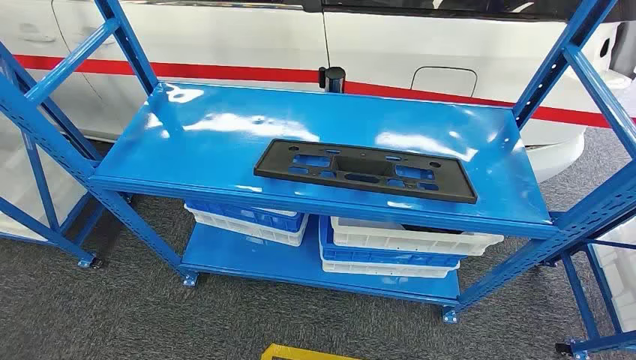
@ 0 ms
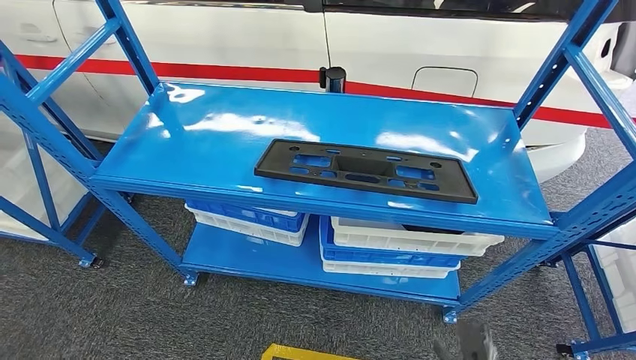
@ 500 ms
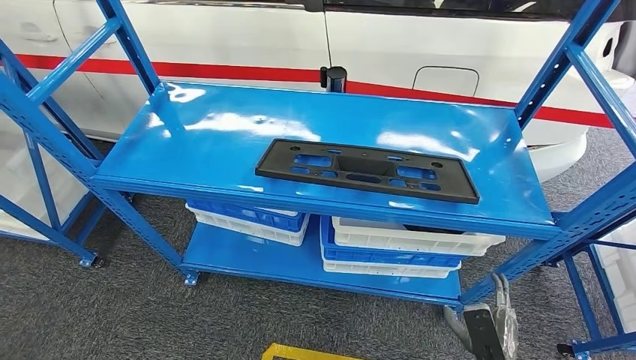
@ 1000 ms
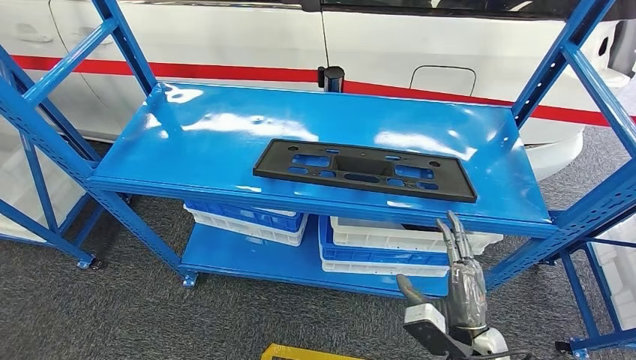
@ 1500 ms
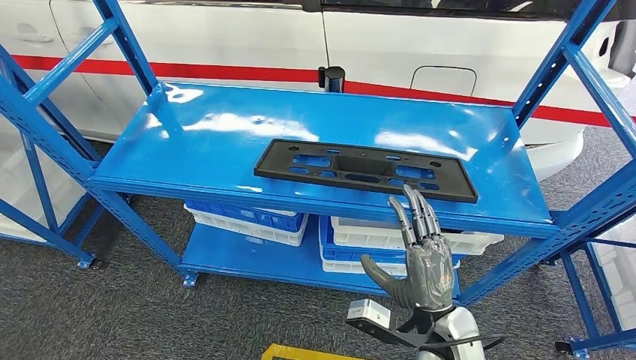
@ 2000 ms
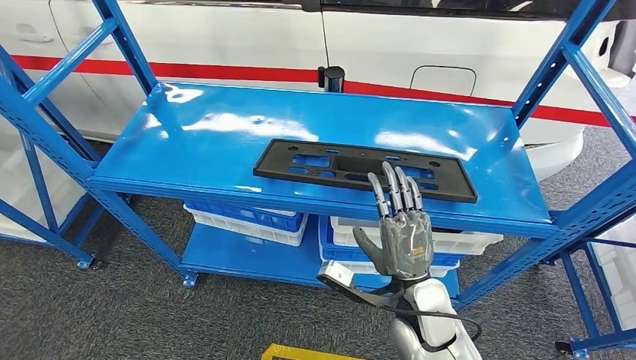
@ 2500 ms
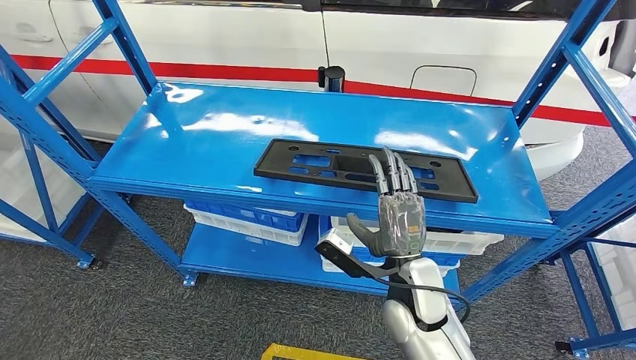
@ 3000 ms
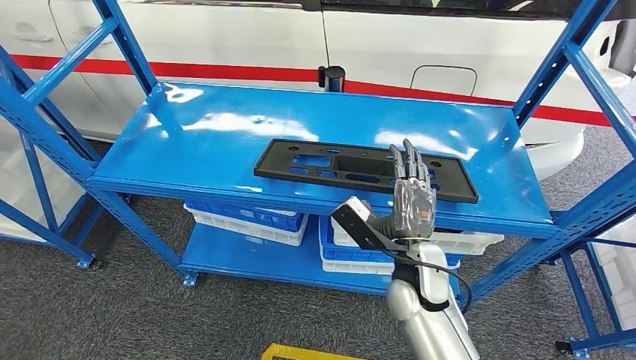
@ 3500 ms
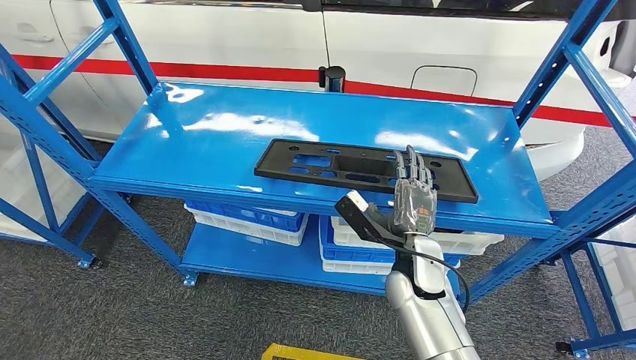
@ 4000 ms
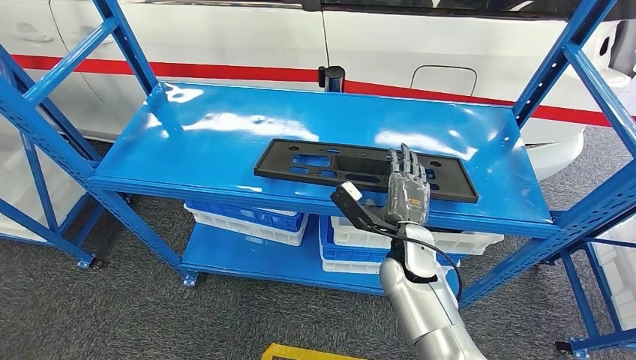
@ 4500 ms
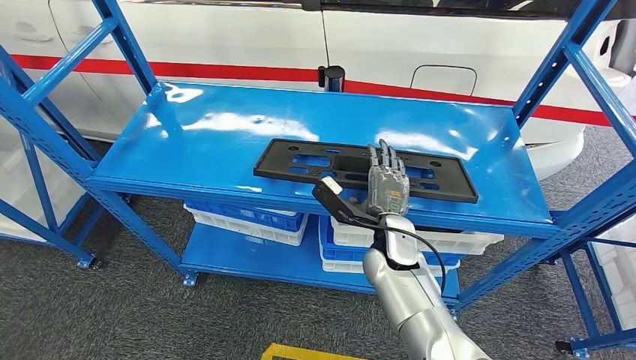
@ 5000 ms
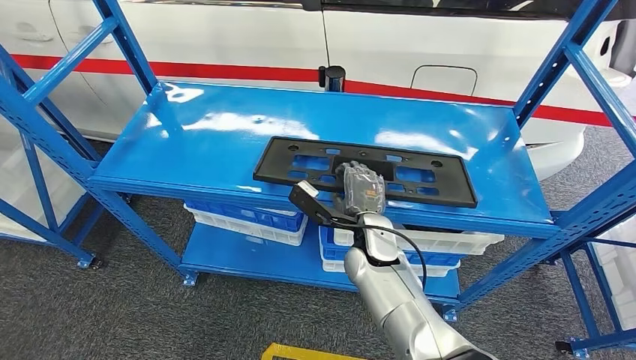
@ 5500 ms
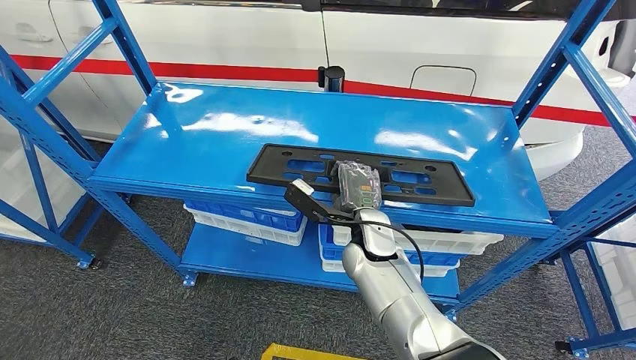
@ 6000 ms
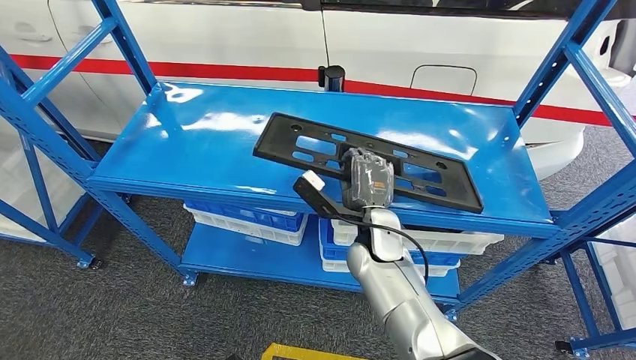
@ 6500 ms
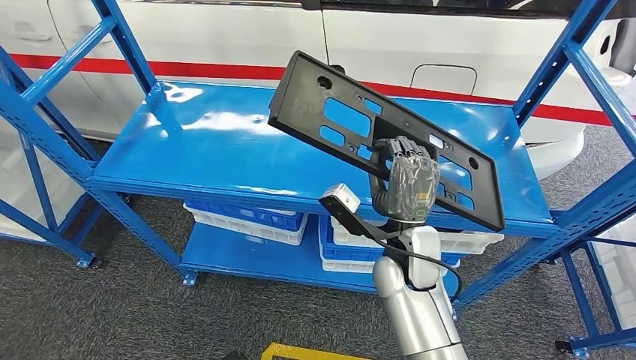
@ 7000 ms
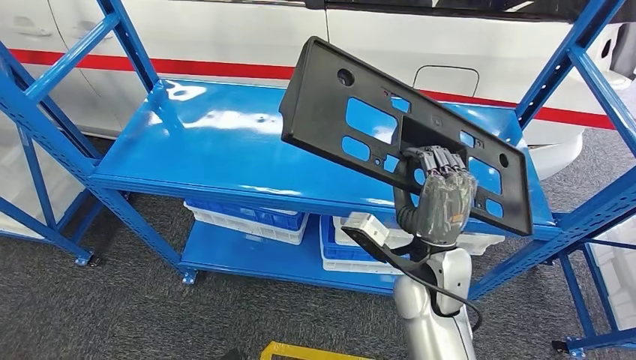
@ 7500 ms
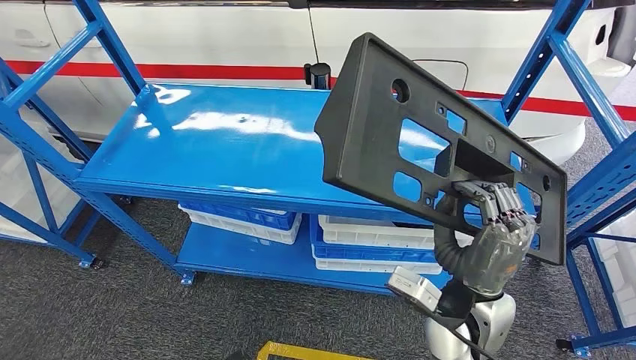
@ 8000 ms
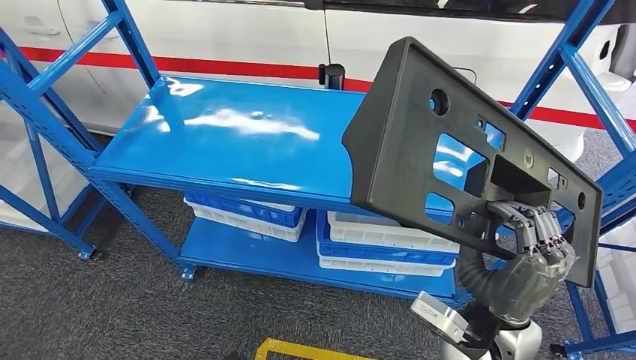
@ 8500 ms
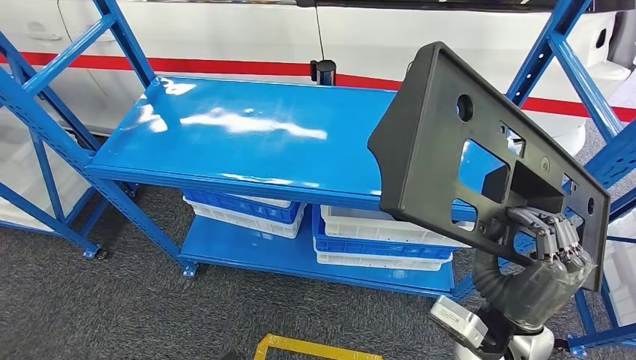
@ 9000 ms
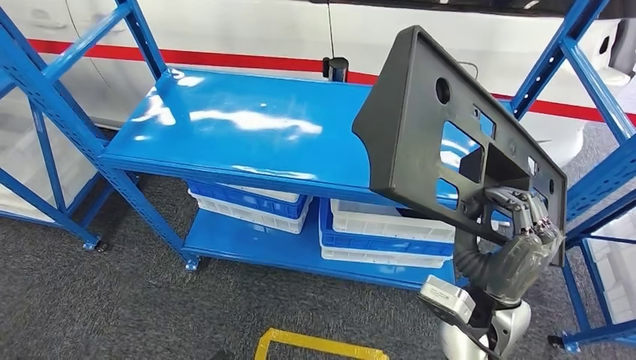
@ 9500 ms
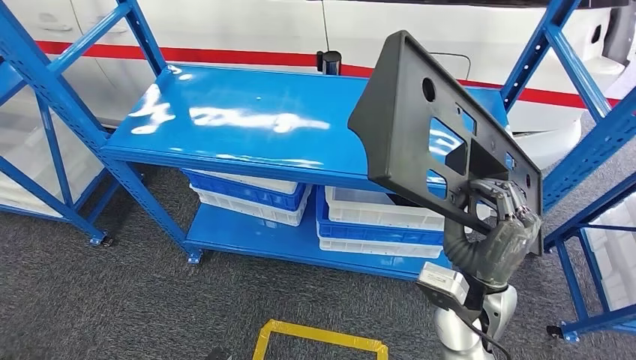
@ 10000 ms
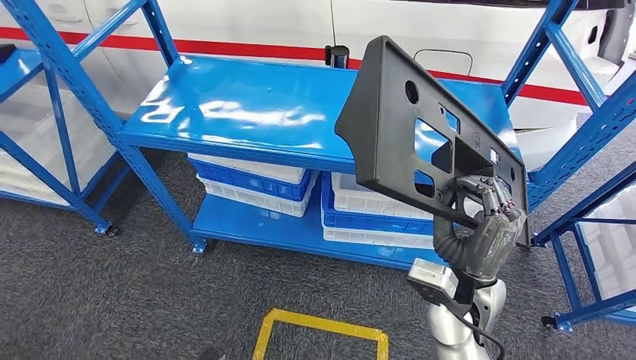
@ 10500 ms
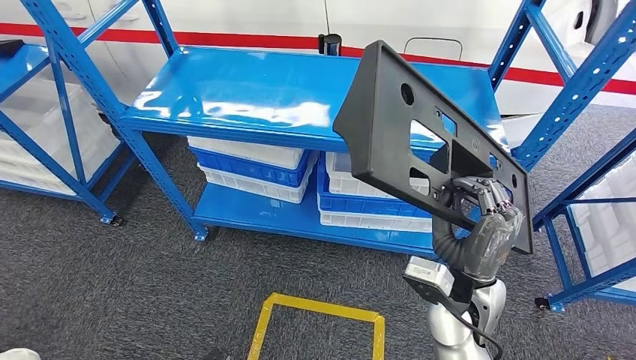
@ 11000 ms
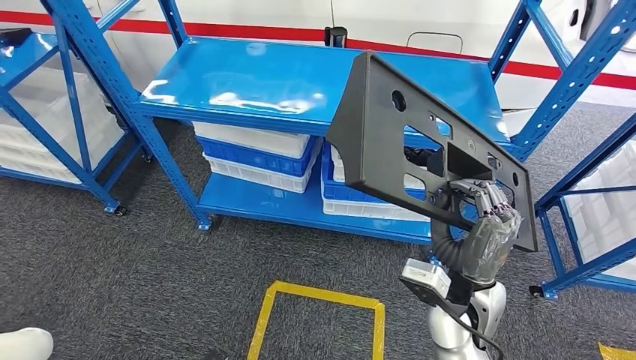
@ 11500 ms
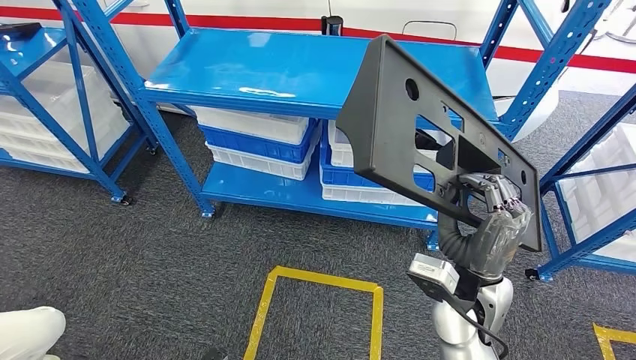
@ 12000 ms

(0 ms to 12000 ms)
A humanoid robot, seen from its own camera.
Step, 0 ms - 9500 ms: Pick up the large material from the shelf.
2000 ms - 4000 ms: The right hand travels forward by approximately 15 cm.
4000 ms - 6000 ms: The right hand is displaced forward by approximately 5 cm.

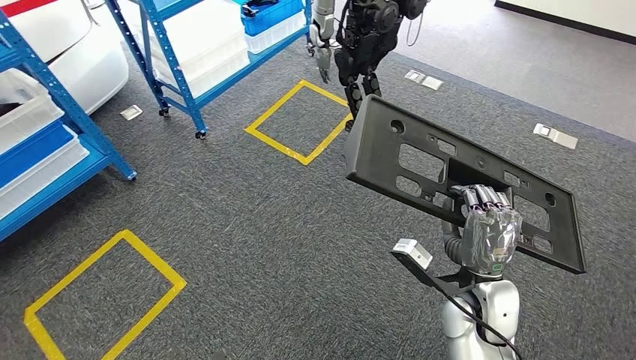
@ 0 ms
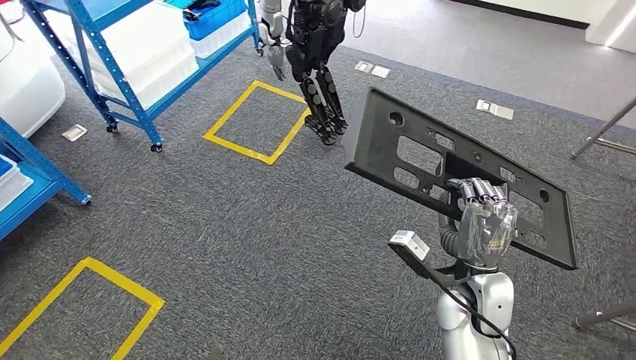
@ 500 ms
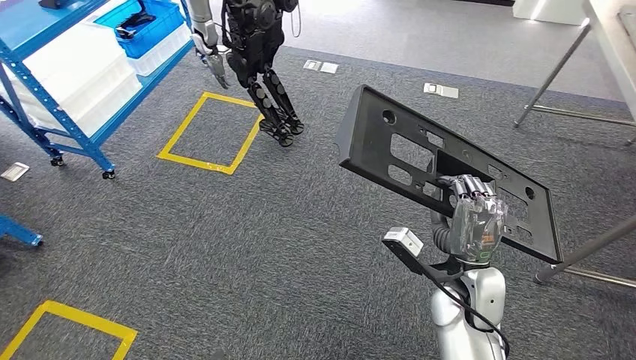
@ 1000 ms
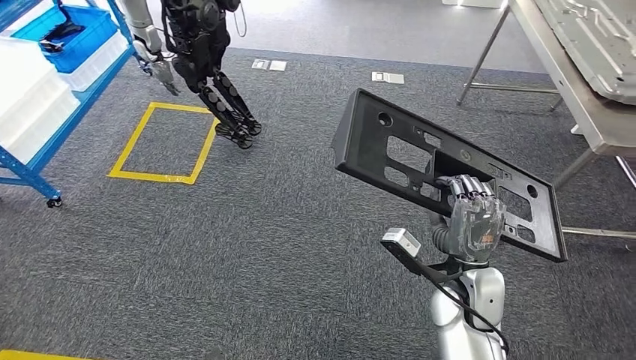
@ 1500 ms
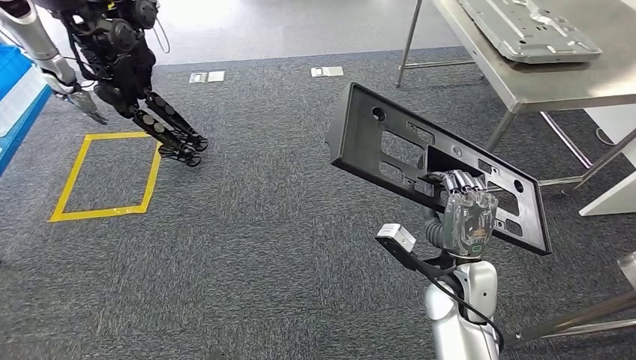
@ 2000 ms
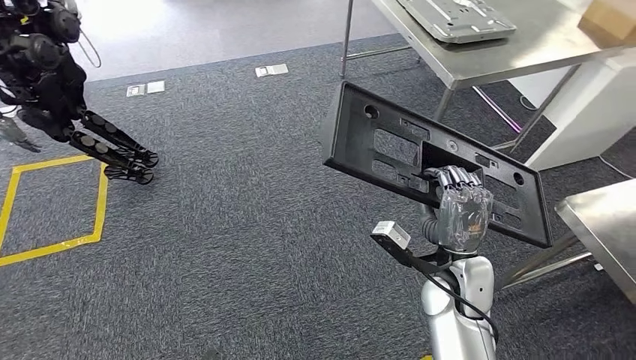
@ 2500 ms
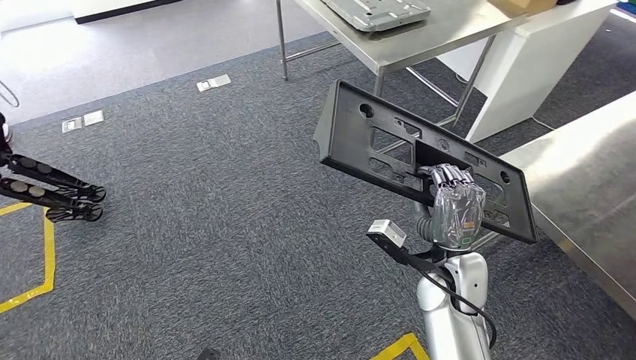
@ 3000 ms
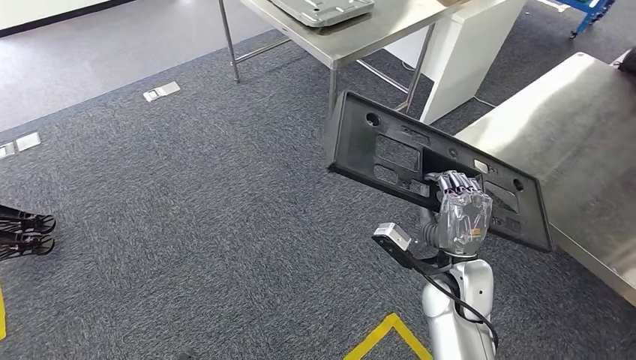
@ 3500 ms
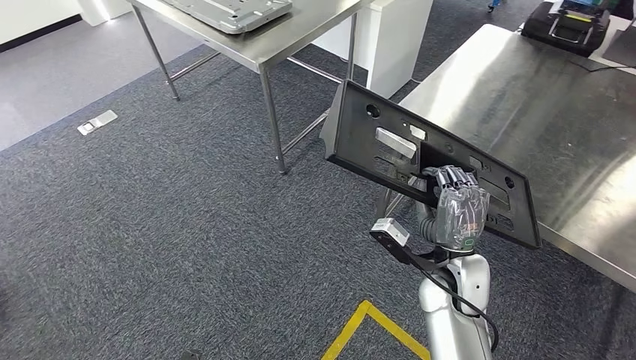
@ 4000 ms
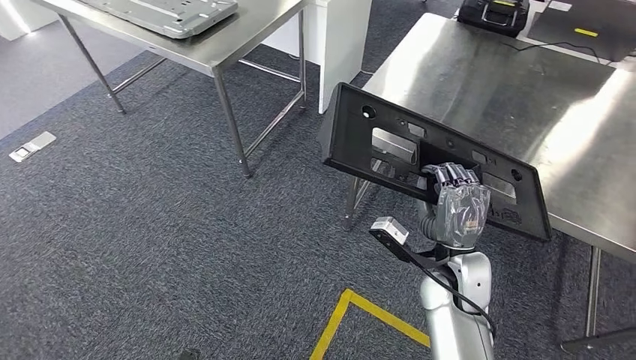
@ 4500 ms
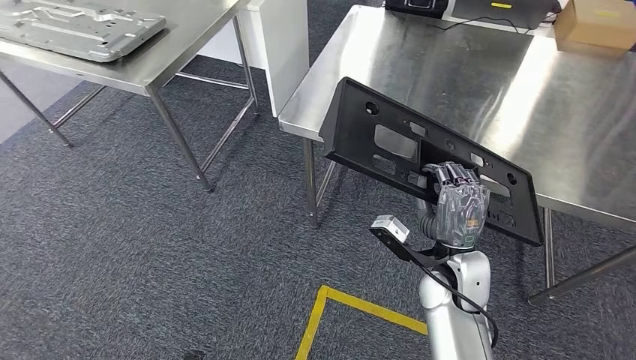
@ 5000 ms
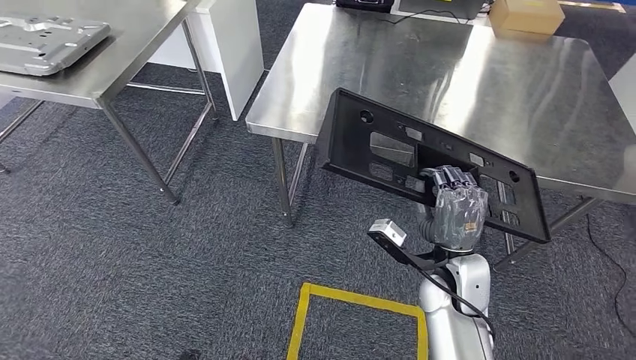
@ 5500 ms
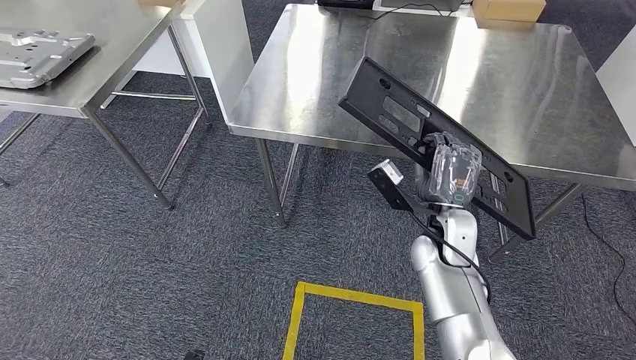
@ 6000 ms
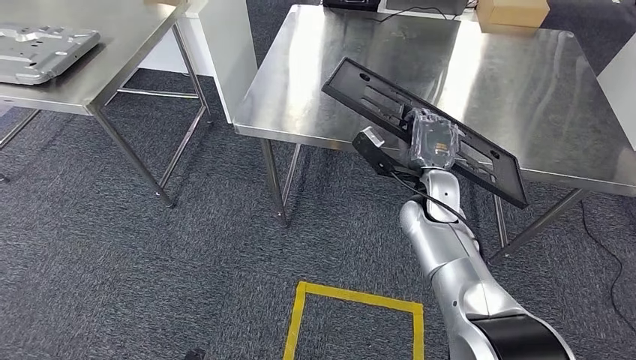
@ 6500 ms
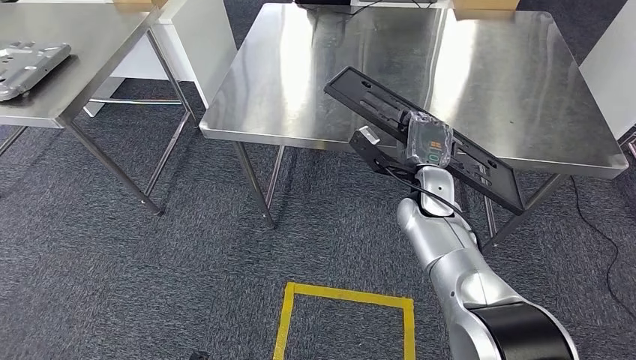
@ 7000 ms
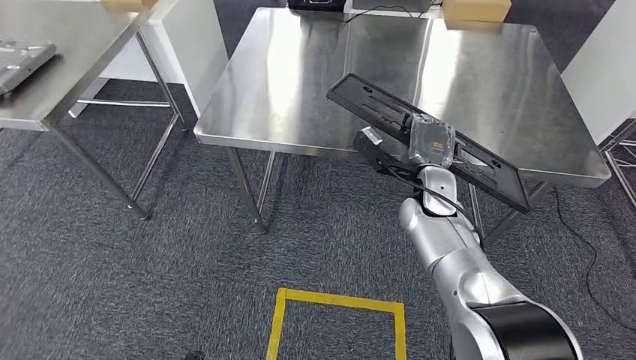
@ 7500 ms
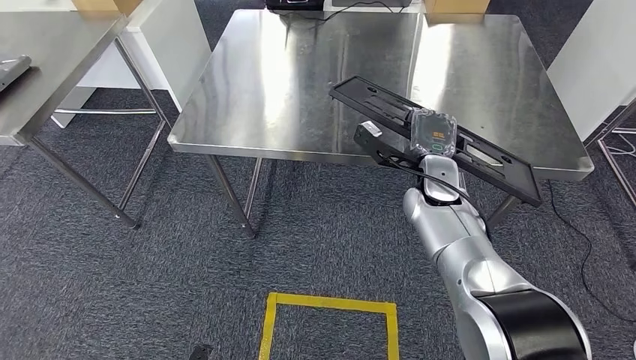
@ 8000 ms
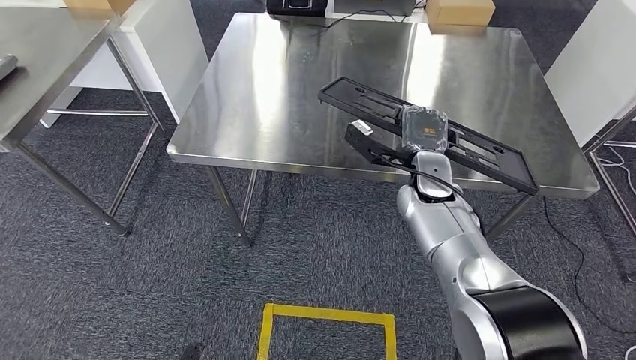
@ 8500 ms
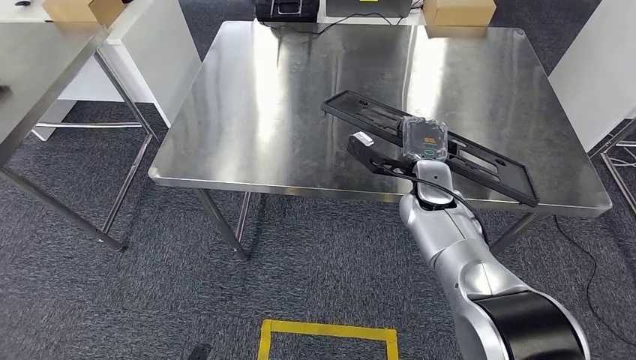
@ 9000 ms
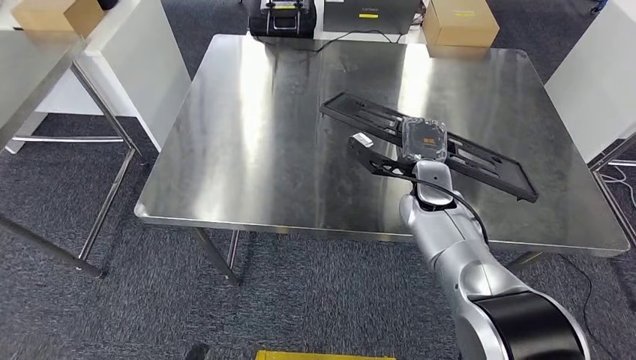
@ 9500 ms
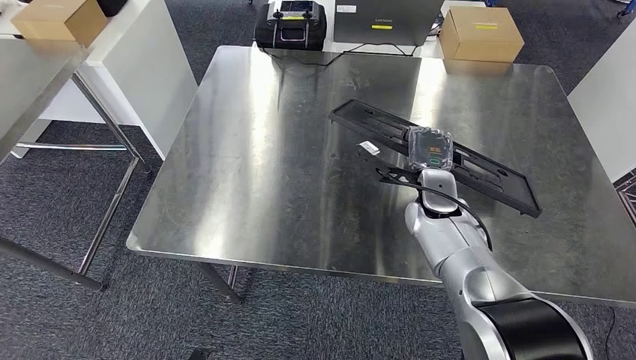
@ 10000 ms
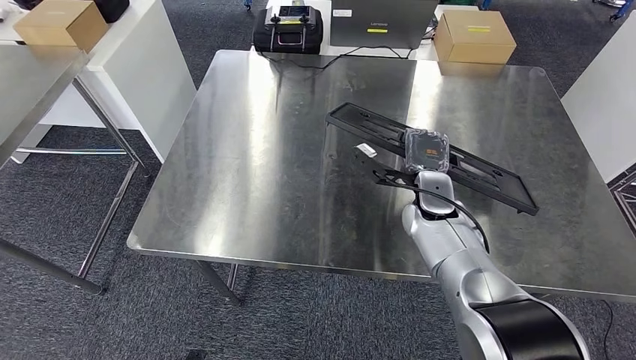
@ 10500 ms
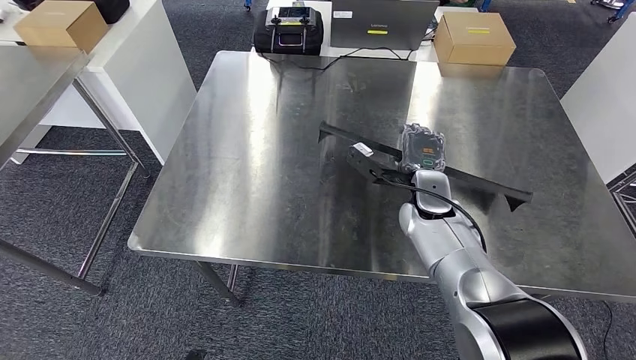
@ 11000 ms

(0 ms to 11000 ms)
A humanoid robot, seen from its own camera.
Step, 0 ms - 7000 ms: Move the large material to the front of the workbench.
